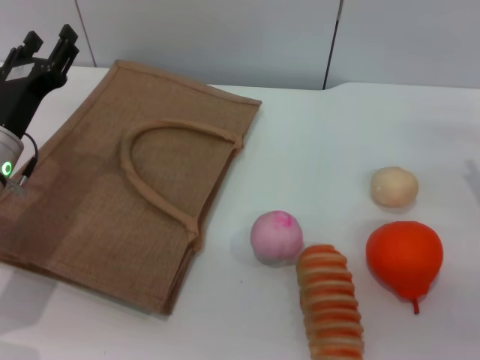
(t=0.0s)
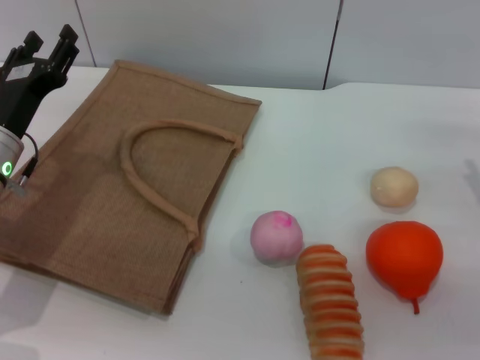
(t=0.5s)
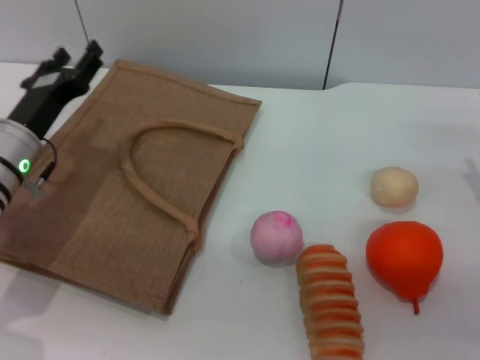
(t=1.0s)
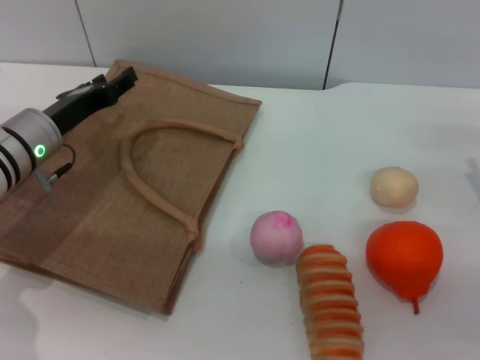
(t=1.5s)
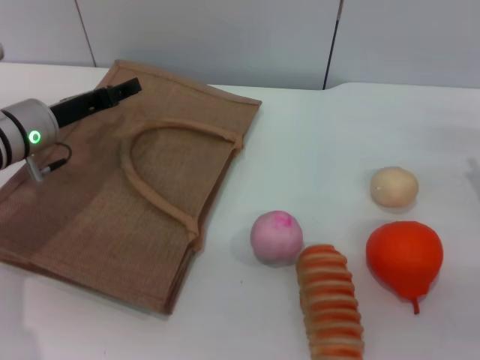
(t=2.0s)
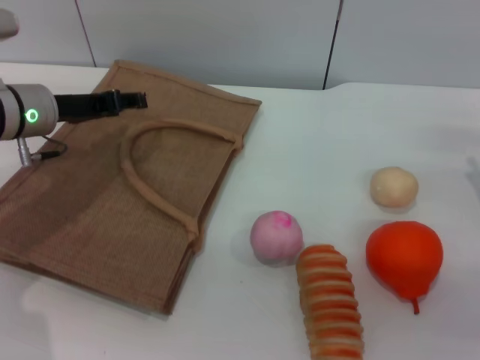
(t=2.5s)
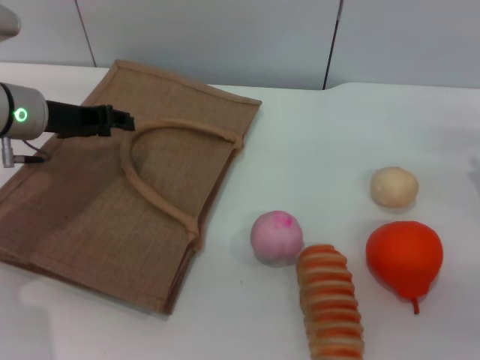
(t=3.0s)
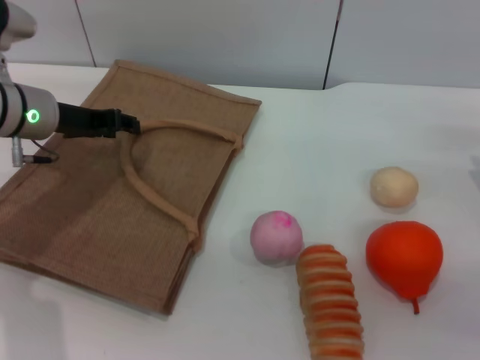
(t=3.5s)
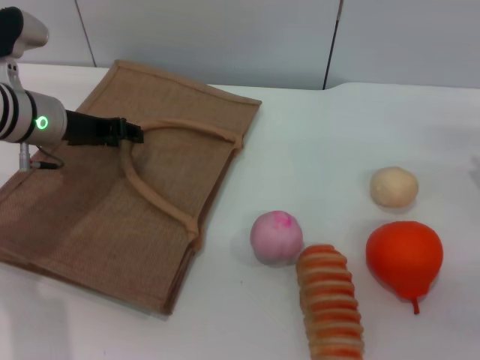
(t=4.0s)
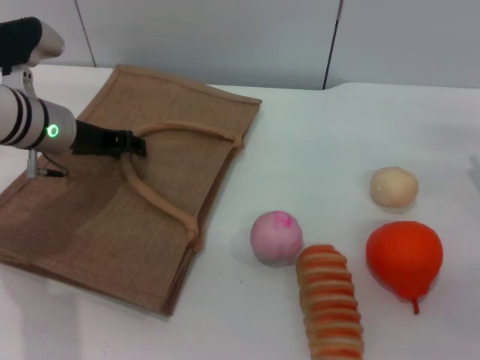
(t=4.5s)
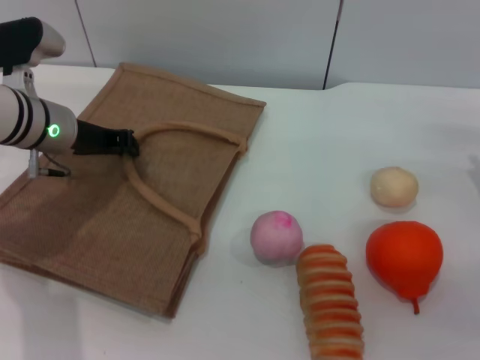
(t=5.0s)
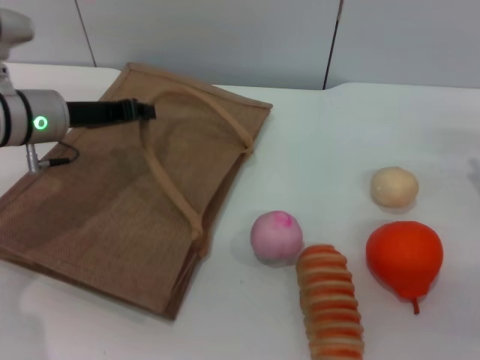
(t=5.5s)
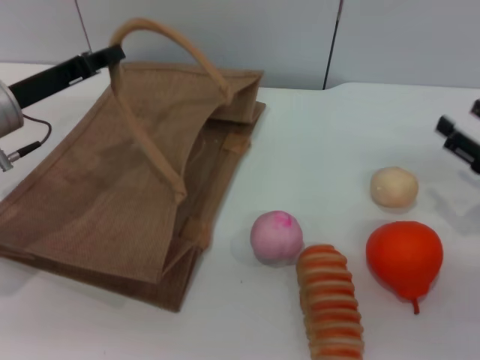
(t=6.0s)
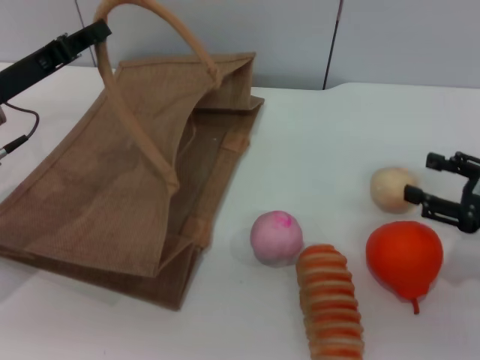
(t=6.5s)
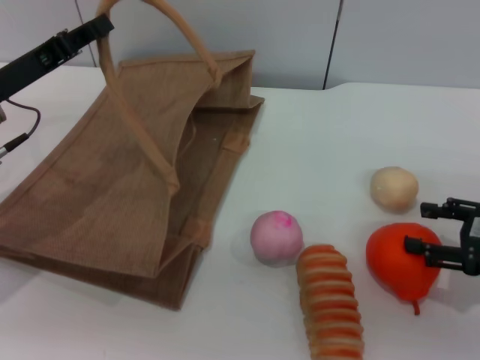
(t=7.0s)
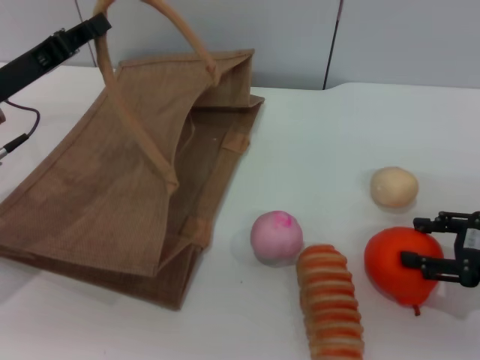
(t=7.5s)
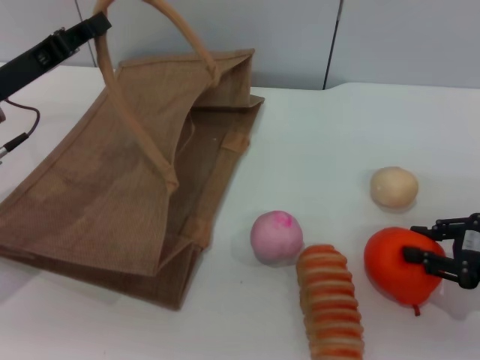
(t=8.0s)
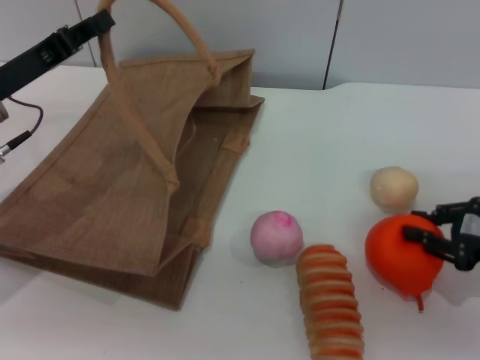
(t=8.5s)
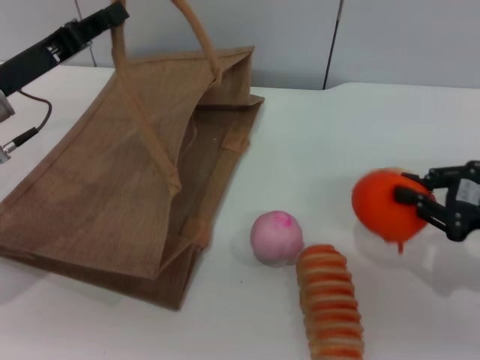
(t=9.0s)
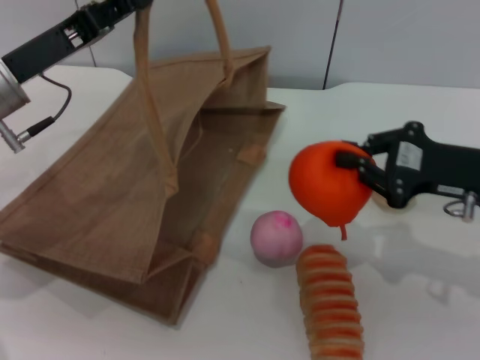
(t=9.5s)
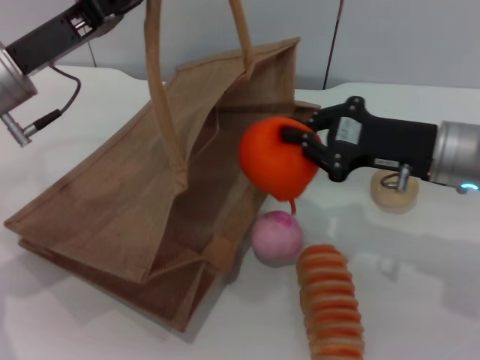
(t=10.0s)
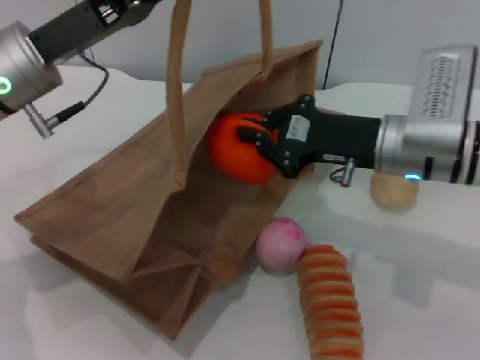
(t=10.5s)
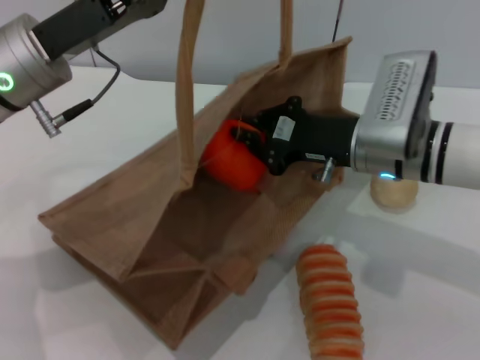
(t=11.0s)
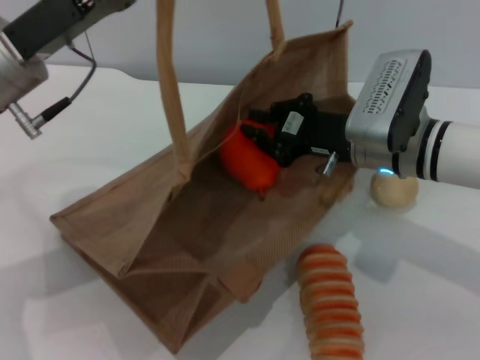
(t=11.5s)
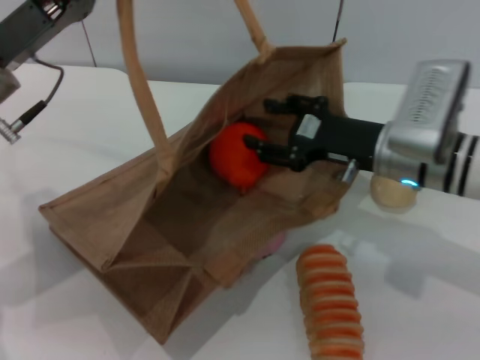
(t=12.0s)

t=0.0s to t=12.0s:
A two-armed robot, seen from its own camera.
Task of the whole recording: pick up the orange from the table and place it in the brown handbag.
Step, t=0.0s to t=5.5s: Lift the woven bag with the left gripper to open it.
Step, t=6.0s to t=9.0s: Pick up the orange with the right gripper.
t=0.0s to t=2.0s: The left gripper heads forward, covering roughly 5 cm.
t=4.0s to t=6.0s: The left gripper changes place by about 5 cm, and closes up.
t=8.0s to t=10.0s: The left gripper shifts by approximately 5 cm. The right gripper travels to the left and forward by approximately 15 cm, and closes up.
t=10.0s to t=12.0s: The right gripper moves roughly 5 cm, and opens up.

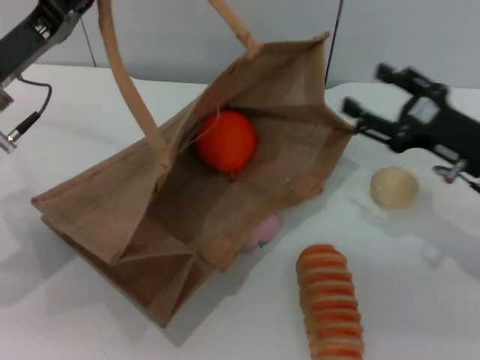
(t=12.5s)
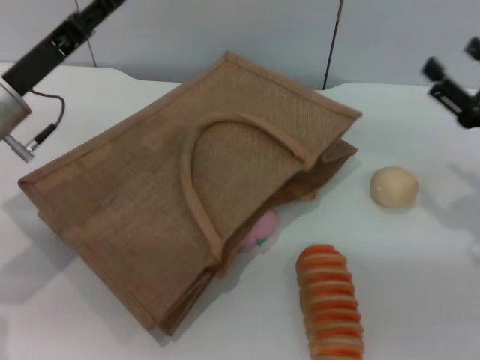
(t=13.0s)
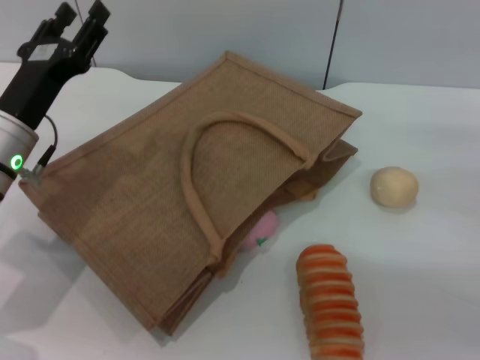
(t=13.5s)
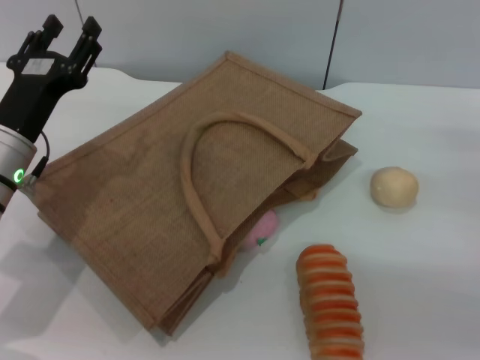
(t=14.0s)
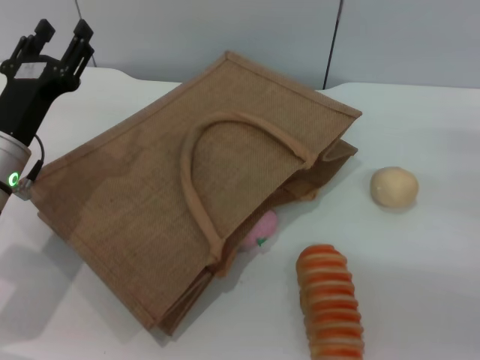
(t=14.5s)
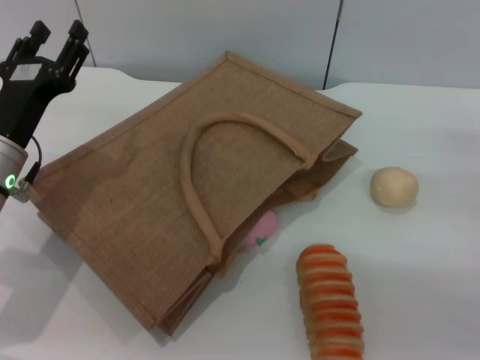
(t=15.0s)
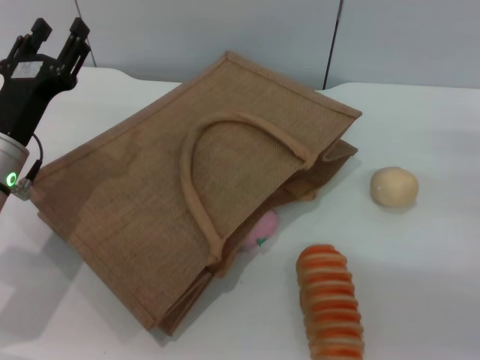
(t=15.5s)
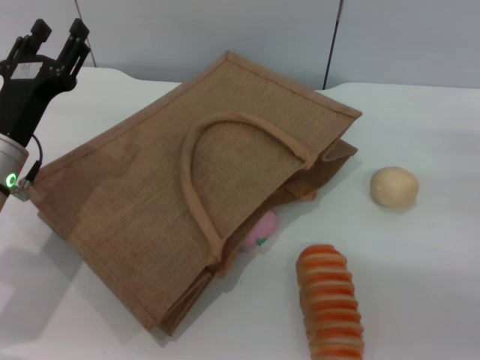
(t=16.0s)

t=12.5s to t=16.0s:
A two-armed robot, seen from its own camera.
Task of the whole recording: pick up the orange from the table and place it in the brown handbag.
Step, t=12.5s to t=14.0s: Lower the woven bag with the left gripper to close it.
t=12.5s to t=14.5s: The left gripper is displaced downward by about 5 cm, and opens. Meanwhile the right gripper travels to the right by approximately 10 cm.
t=14.5s to t=16.0s: Both grippers stay about where they are.

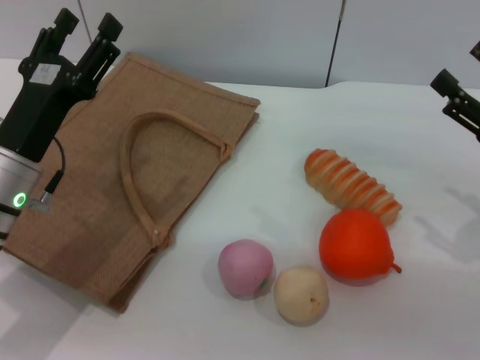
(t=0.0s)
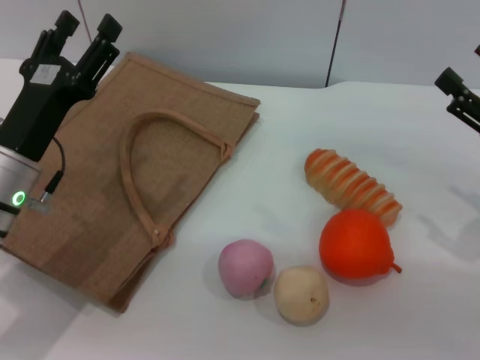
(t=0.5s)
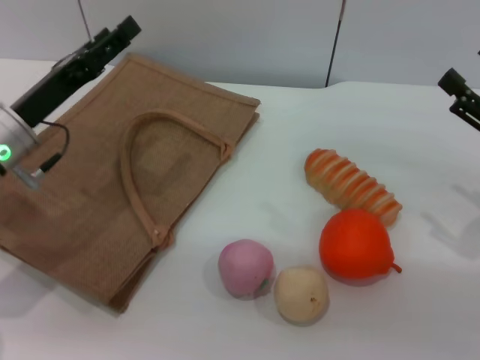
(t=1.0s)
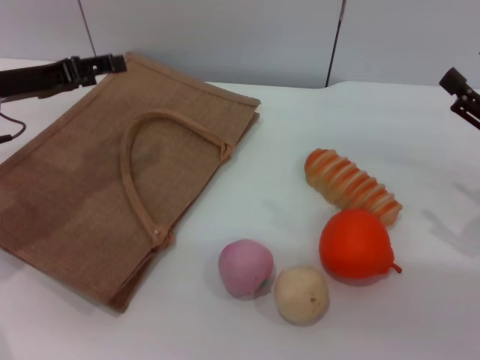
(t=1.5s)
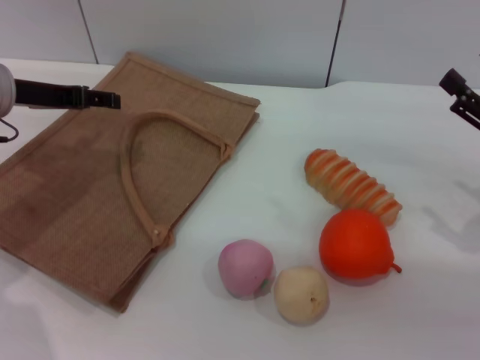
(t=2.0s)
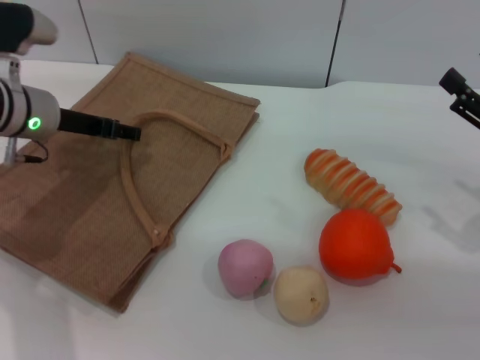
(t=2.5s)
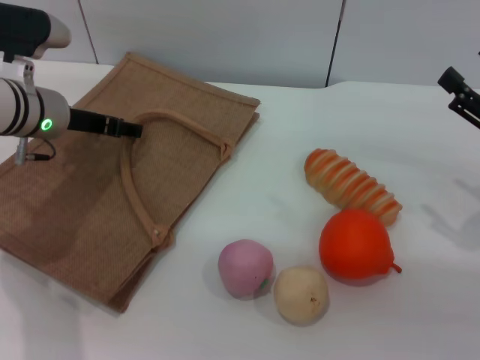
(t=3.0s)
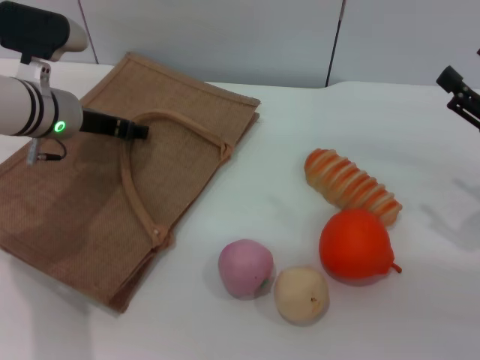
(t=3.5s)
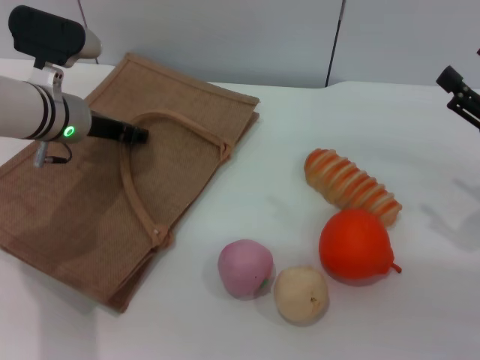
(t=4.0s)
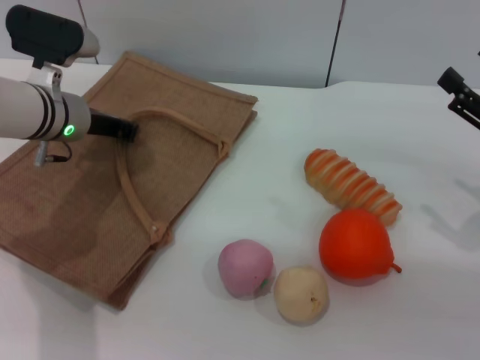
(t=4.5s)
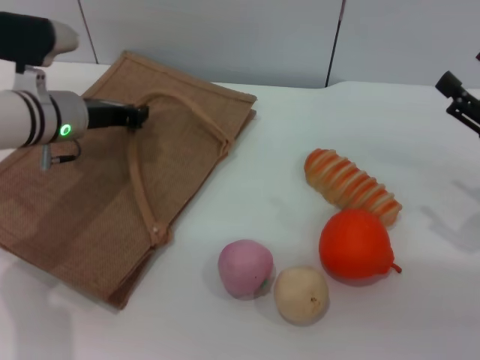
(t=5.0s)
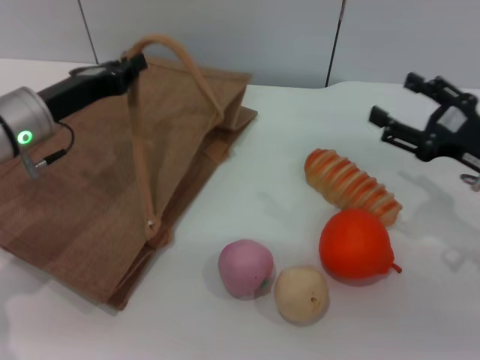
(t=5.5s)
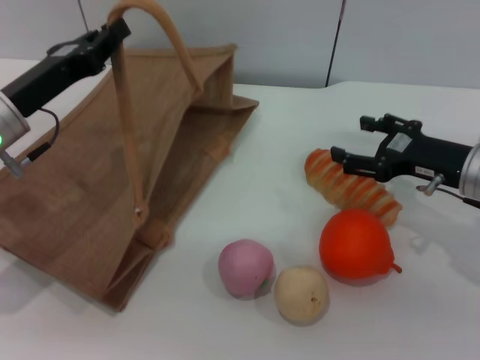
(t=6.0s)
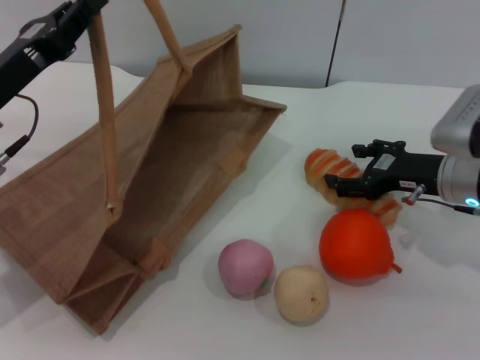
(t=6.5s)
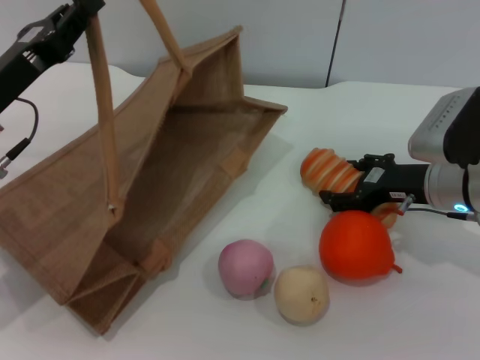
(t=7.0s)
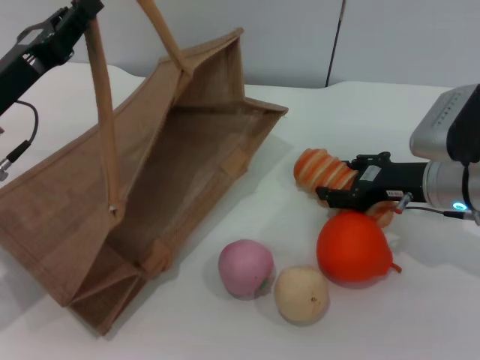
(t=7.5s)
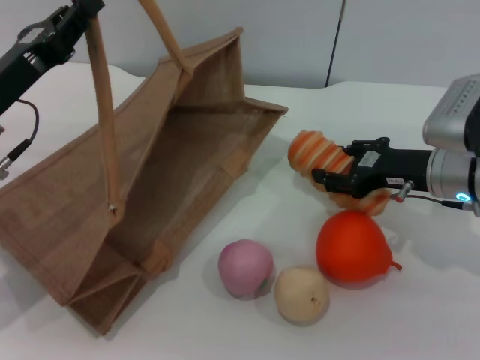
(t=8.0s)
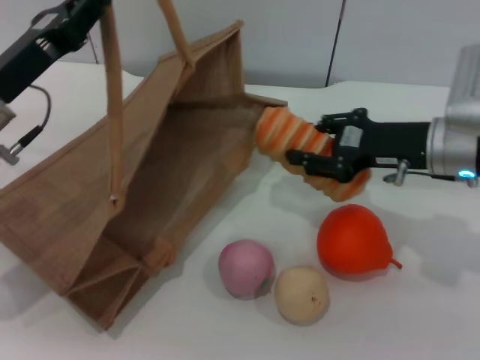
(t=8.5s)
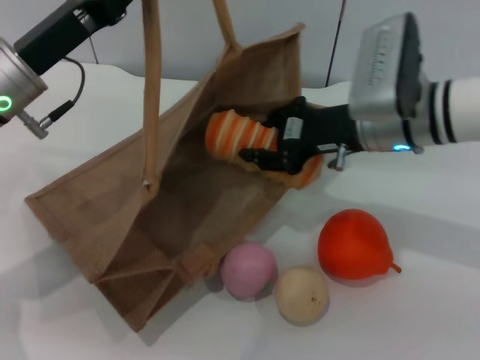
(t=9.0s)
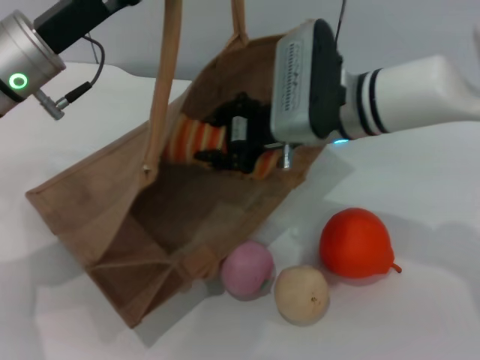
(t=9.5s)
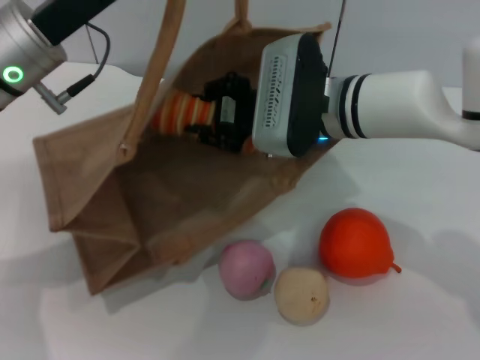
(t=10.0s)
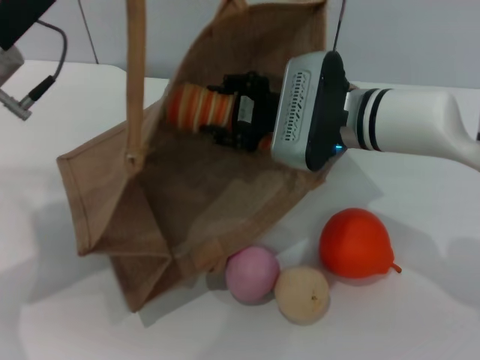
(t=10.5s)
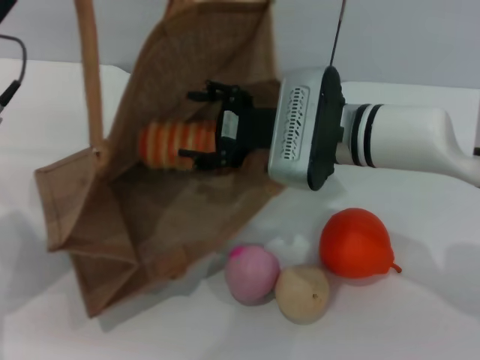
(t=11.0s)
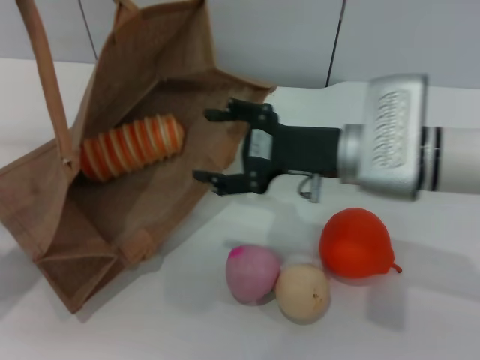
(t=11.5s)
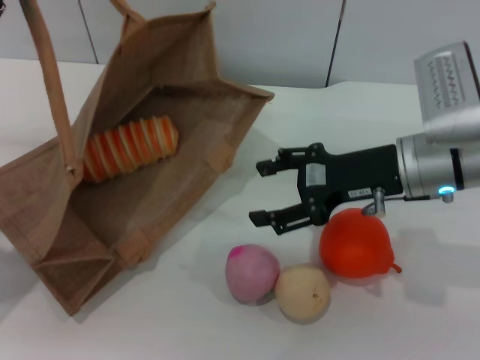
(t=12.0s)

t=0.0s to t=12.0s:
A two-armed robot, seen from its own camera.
Task of the whole recording: pick up the bread and egg yolk pastry from the table and place it in the brown handbag.
Step, t=0.0s to t=5.0s: Lift the woven bag with the left gripper to open it.
Step, t=5.5s to t=8.0s: Pick up the bread with the right gripper.
Step, t=8.5s to t=11.0s: Place the bread into the woven bag with the right gripper.
t=0.0s to t=2.0s: The left gripper is displaced forward, upward and to the left by about 15 cm.
t=2.0s to t=4.0s: The left gripper heads to the right and downward, covering roughly 10 cm.
t=4.0s to t=6.0s: The left gripper travels backward by roughly 10 cm, and closes its fingers; the right gripper shifts roughly 10 cm to the left and forward.
t=6.0s to t=8.0s: The right gripper closes its fingers.
t=8.0s to t=10.0s: The left gripper moves upward and to the right, some 10 cm; the right gripper is displaced to the left by some 15 cm, and closes.
t=10.0s to t=12.0s: The right gripper heads to the right, covering roughly 10 cm, and opens its fingers. The left gripper moves to the left and downward, approximately 10 cm.
